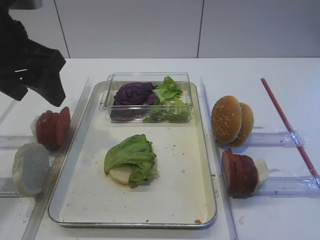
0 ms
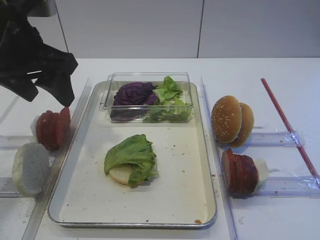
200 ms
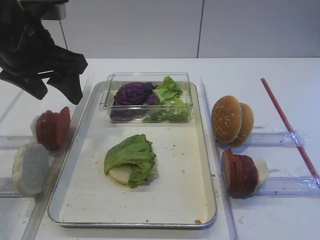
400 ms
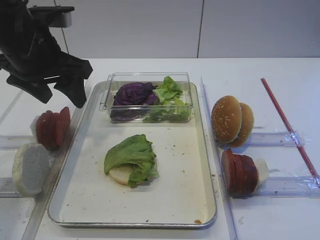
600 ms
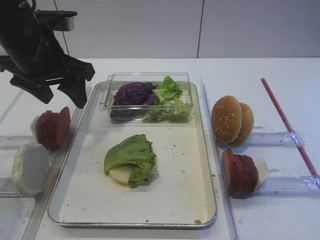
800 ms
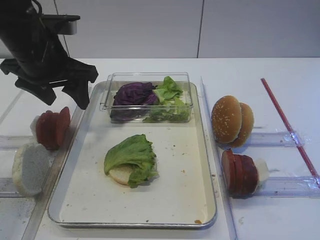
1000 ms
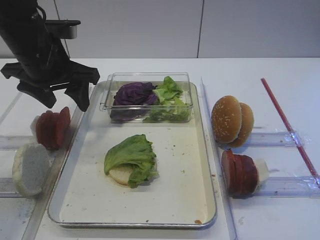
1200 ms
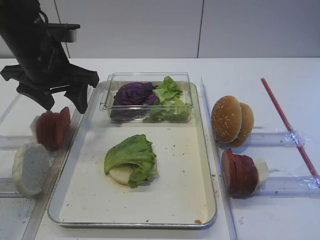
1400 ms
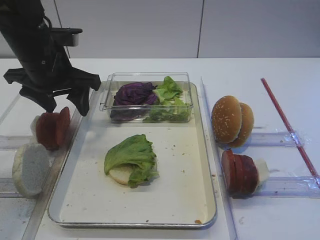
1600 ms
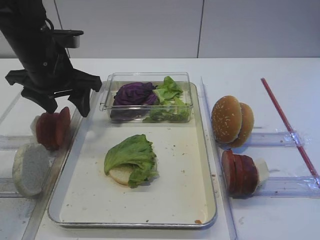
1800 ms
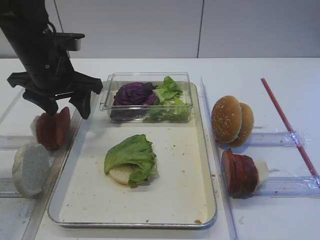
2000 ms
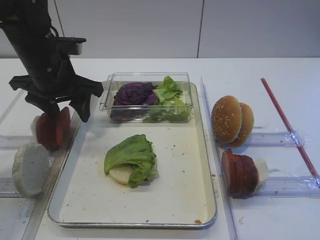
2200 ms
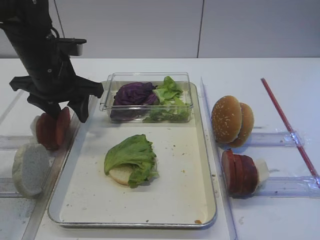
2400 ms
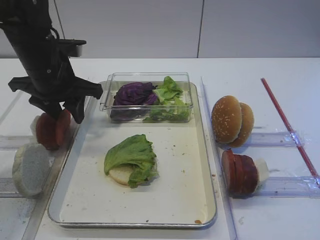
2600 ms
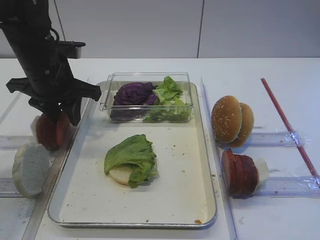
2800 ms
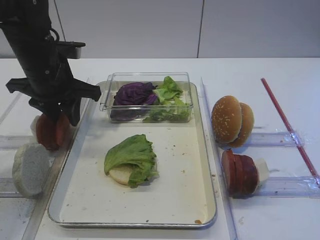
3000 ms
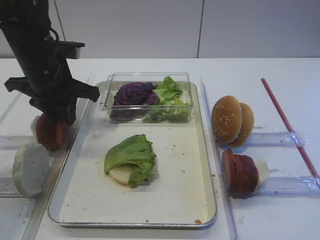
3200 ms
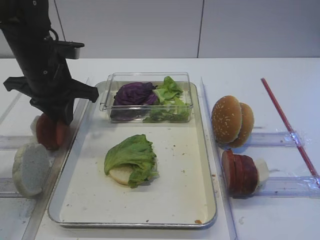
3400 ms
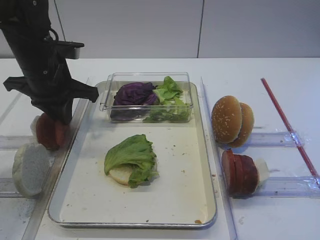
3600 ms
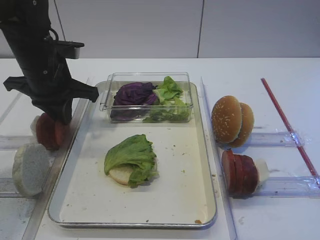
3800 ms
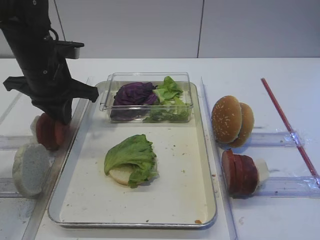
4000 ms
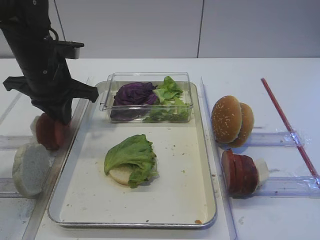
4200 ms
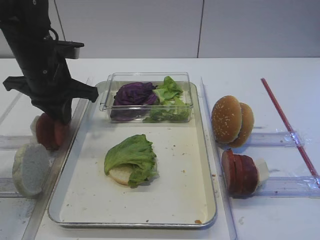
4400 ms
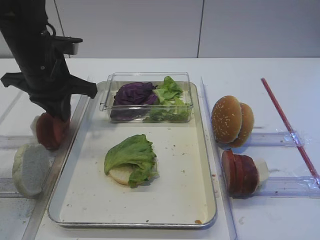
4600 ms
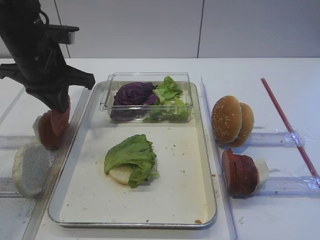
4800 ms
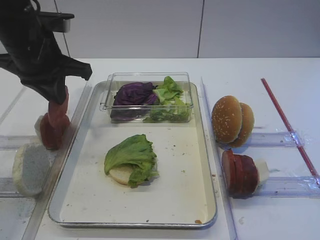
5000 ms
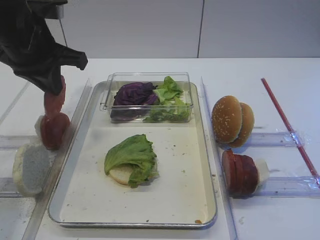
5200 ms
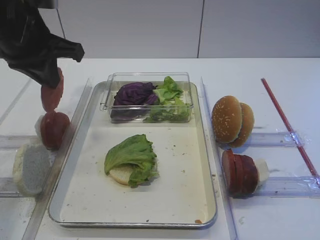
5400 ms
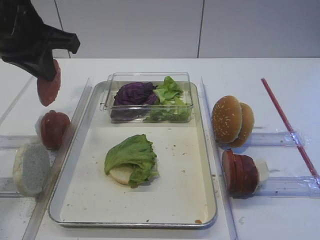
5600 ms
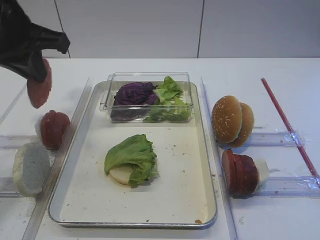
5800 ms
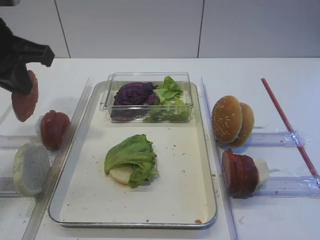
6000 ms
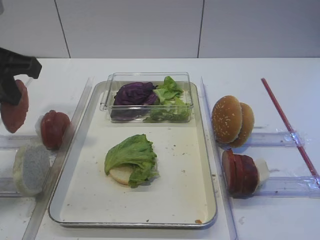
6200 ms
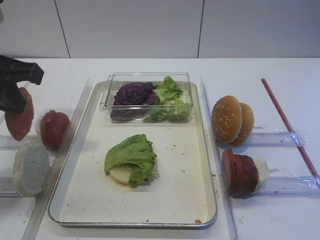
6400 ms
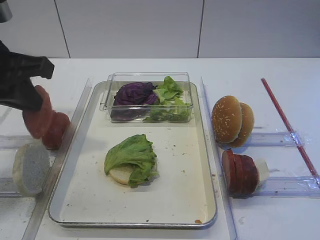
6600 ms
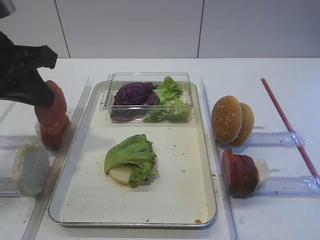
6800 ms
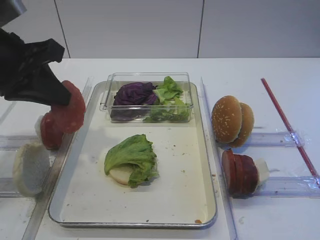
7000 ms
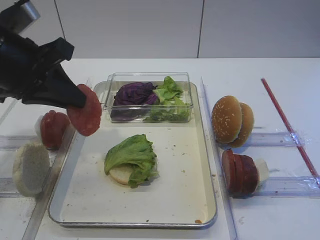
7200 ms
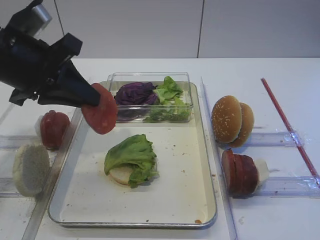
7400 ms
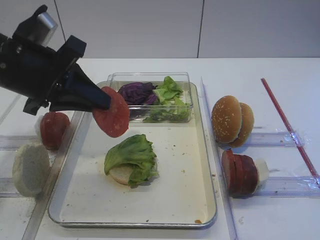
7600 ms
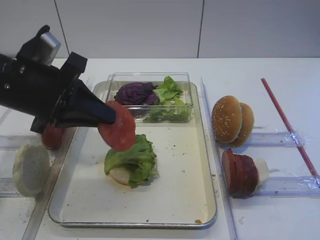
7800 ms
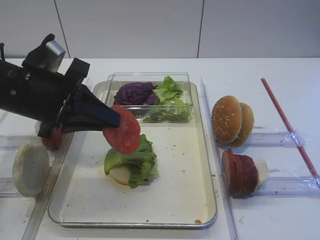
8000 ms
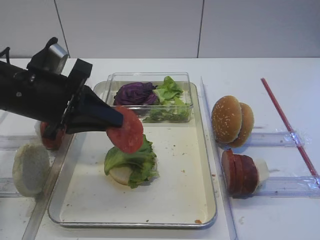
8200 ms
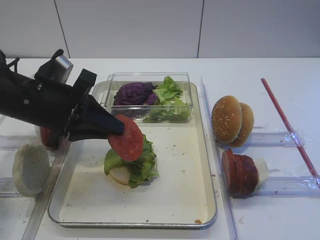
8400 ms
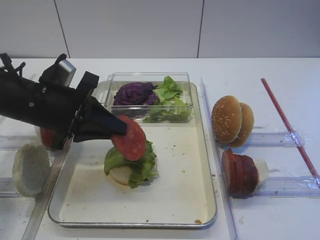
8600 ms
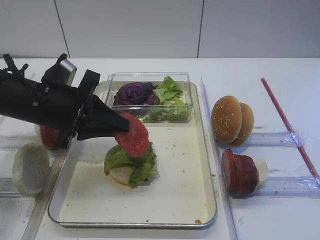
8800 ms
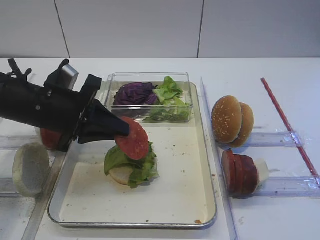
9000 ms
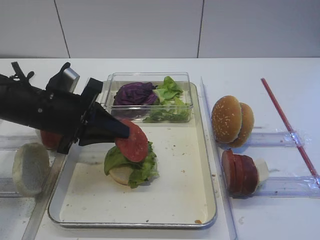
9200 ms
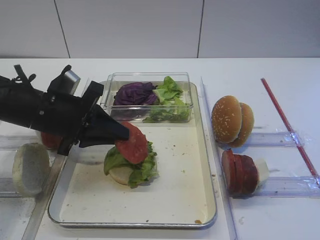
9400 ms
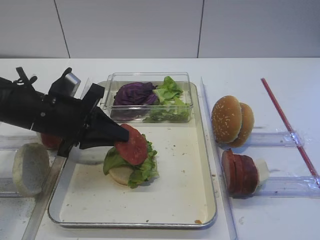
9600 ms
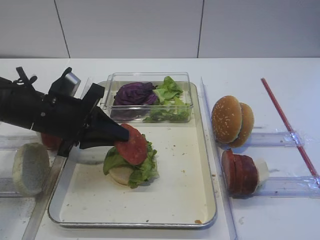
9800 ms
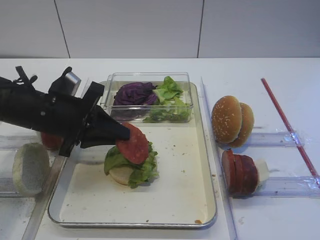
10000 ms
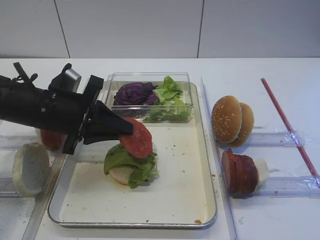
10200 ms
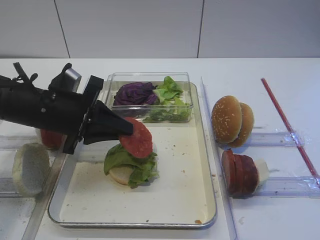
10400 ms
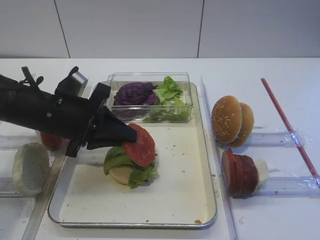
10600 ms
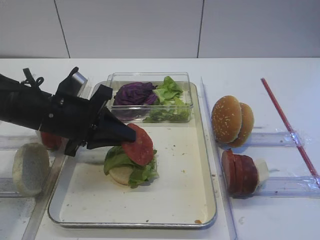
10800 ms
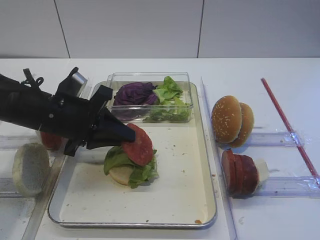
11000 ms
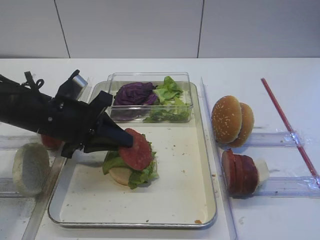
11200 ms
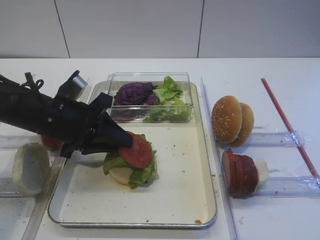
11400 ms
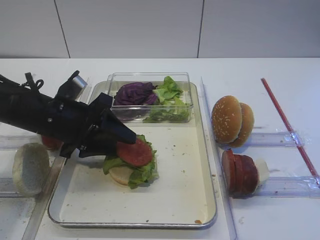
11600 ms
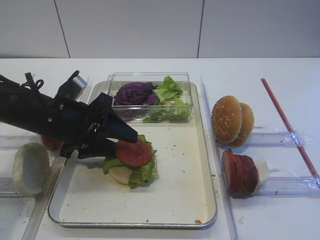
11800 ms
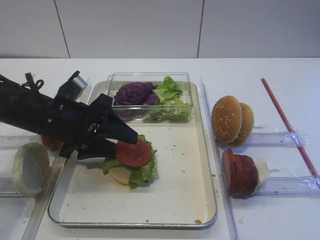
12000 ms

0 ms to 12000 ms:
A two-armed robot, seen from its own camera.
Step, 0 ms to 5200 ms: Pick up the tomato slice with the left gripper.
0 ms to 1600 ms: The left gripper goes some 10 cm forward and downward.
1600 ms to 3000 ms: The left gripper closes its fingers.
3000 ms to 4400 ms: The left gripper closes.
4400 ms to 6000 ms: The left gripper goes some 10 cm upward and backward.
6000 ms to 7600 ms: The left gripper moves about 5 cm.
7600 ms to 9000 ms: The left gripper travels downward by roughly 10 cm.
9000 ms to 10400 ms: The grippers make only small movements.
10400 ms to 12000 ms: The left gripper opens up.

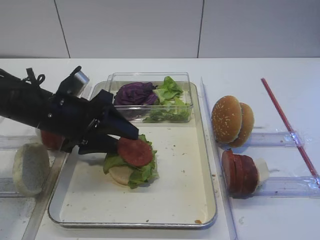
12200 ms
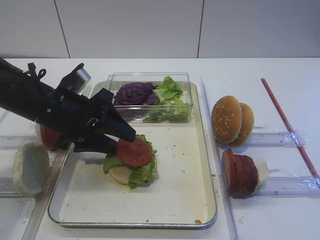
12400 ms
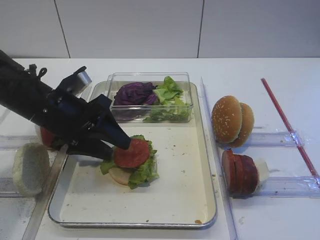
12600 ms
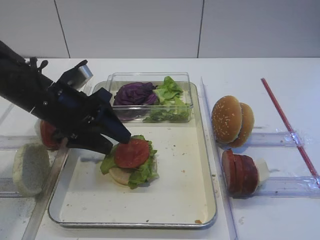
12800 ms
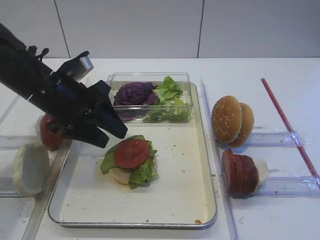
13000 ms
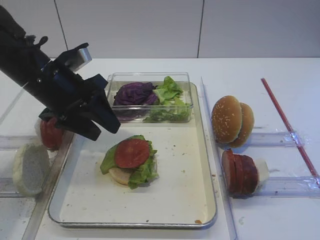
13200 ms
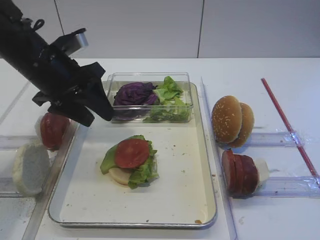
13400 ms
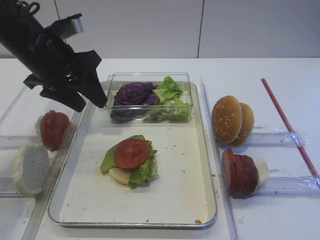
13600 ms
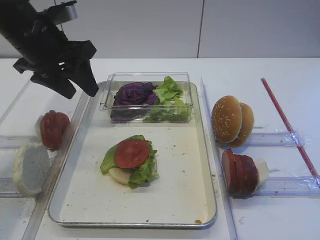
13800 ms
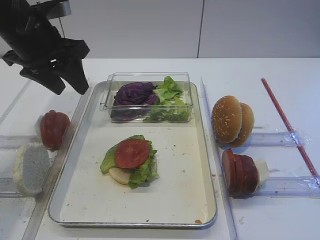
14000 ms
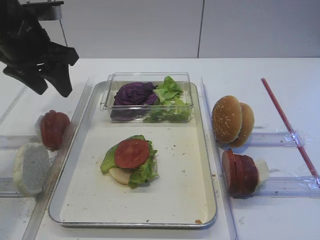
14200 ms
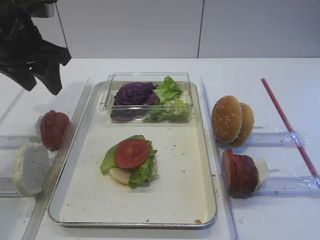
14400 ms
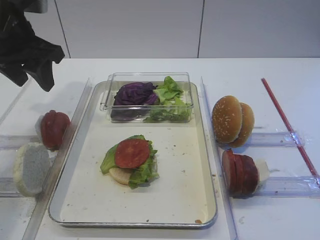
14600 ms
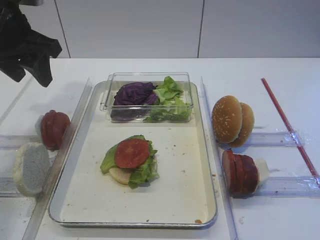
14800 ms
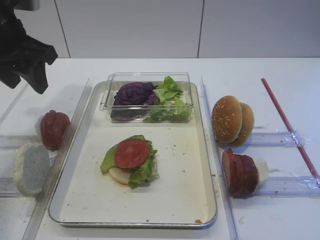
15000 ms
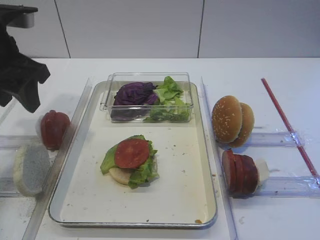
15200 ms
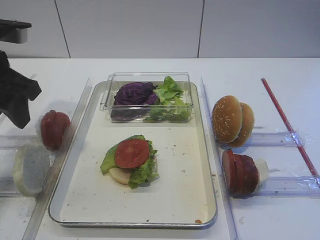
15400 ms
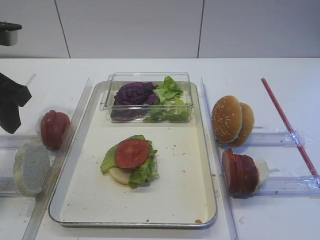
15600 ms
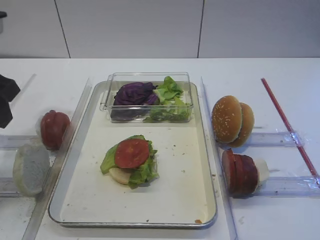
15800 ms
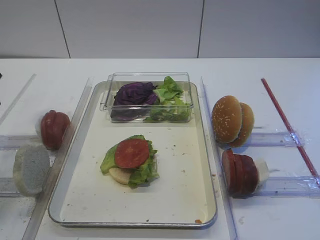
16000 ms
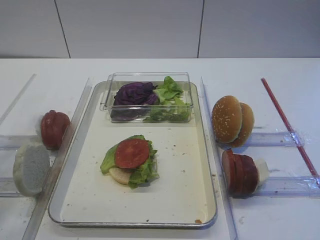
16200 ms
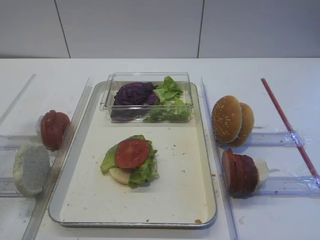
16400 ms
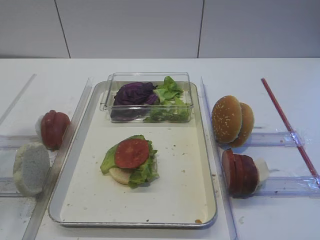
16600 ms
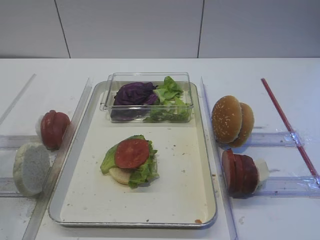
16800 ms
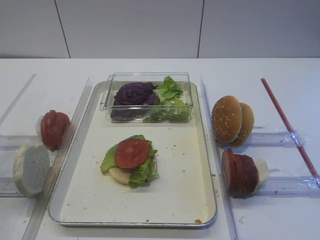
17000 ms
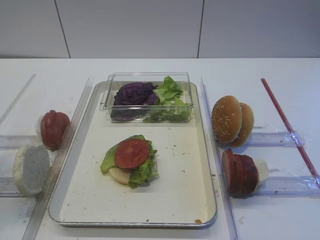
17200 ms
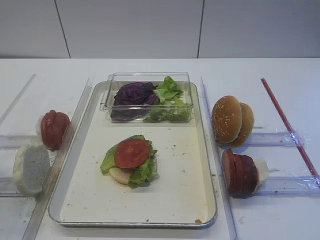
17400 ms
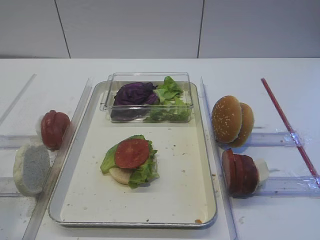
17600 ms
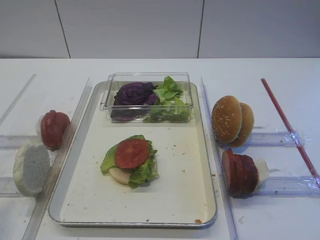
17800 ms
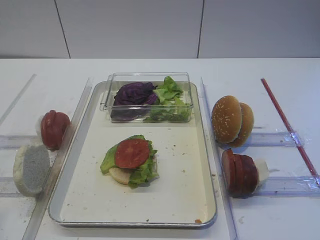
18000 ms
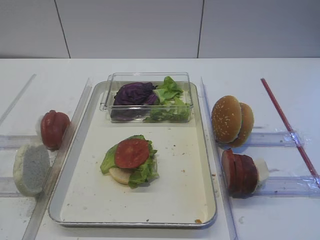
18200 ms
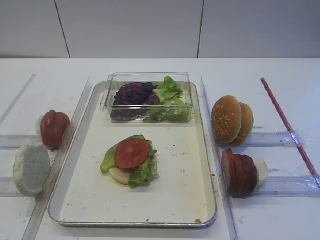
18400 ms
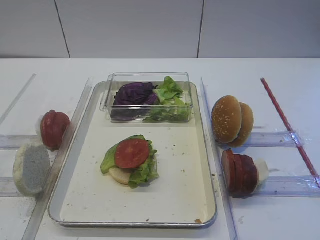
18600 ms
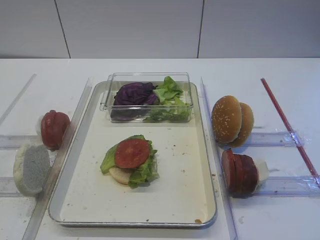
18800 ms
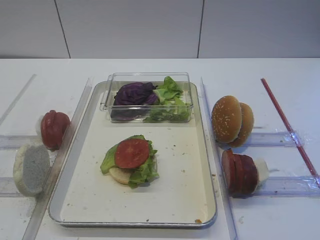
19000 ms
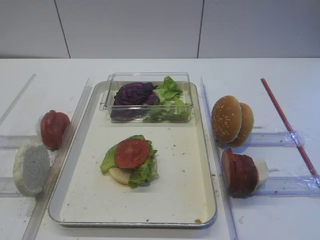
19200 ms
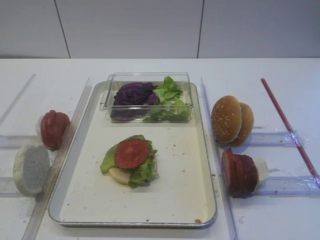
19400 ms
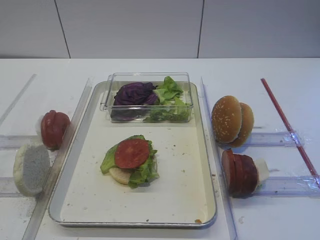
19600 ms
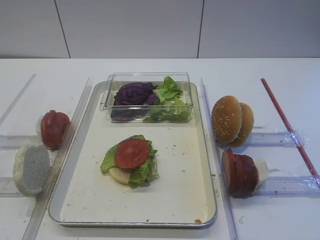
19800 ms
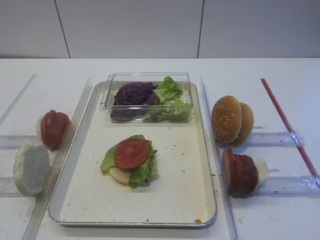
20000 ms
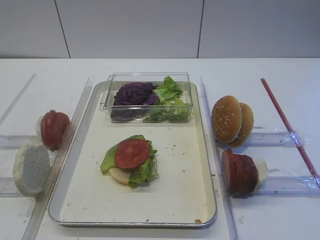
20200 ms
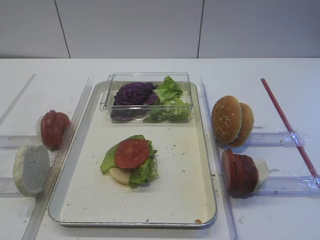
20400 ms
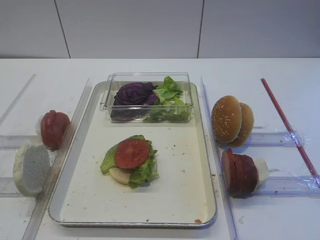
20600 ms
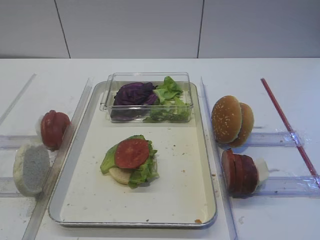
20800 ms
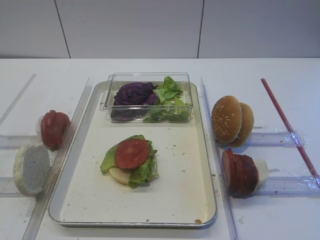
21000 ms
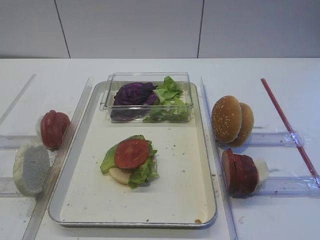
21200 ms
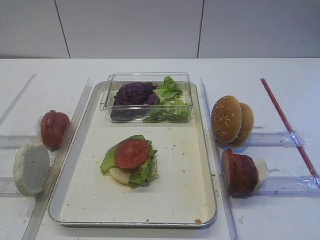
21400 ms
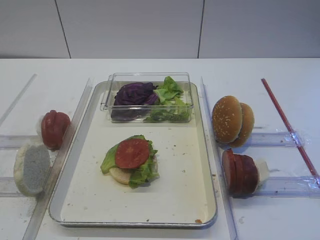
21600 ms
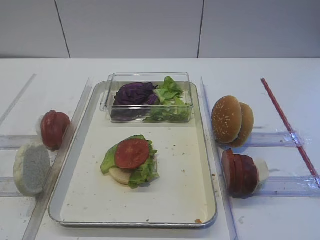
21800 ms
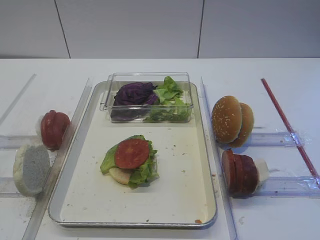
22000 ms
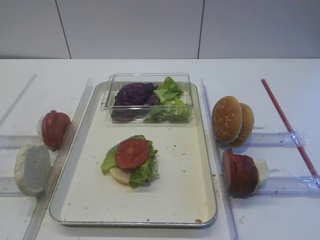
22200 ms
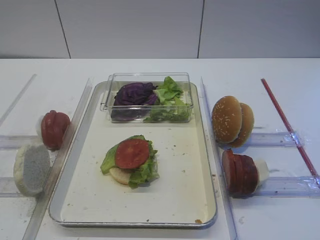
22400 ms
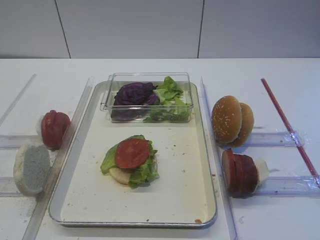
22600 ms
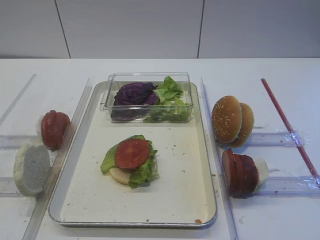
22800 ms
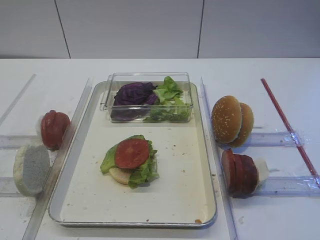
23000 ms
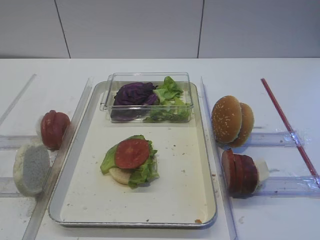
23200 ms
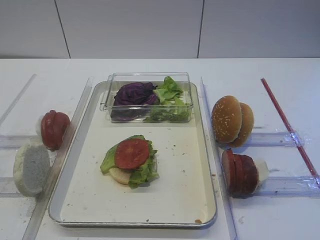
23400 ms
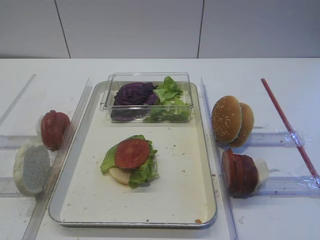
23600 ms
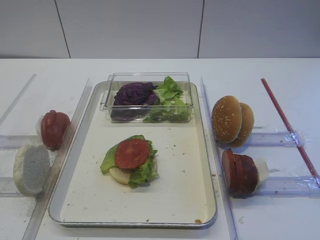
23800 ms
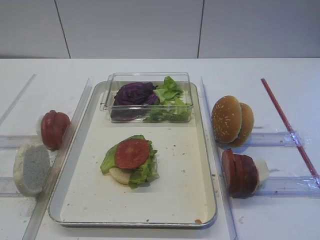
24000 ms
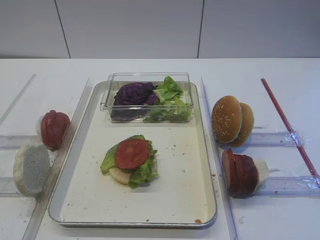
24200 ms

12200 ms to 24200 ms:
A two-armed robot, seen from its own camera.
12200 ms to 13800 ms: The left gripper heads upward and forward, covering about 10 cm.
13800 ms to 15200 ms: The left gripper ends up some 5 cm from where it was.
15200 ms to 16600 ms: The left gripper shifts some 20 cm backward and upward.
16600 ms to 18200 ms: The left gripper travels backward by some 15 cm.
22600 ms to 24200 ms: Both grippers stay put.
